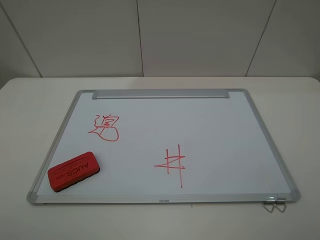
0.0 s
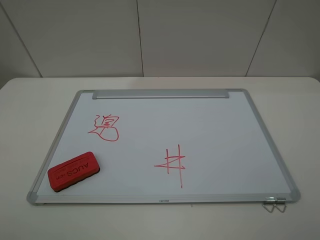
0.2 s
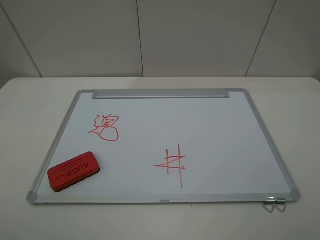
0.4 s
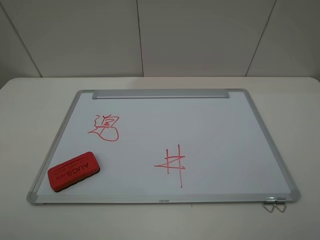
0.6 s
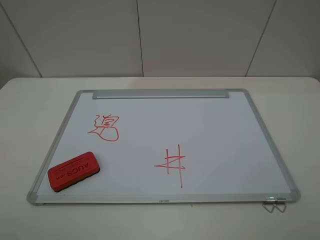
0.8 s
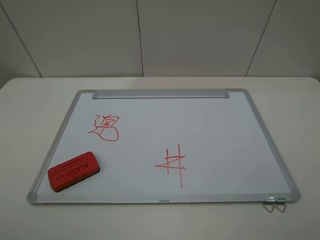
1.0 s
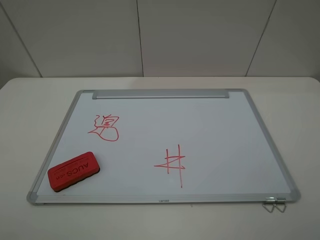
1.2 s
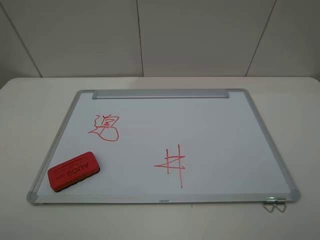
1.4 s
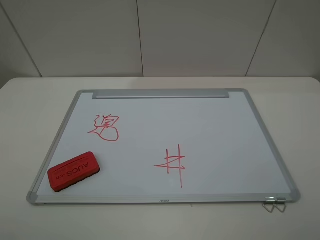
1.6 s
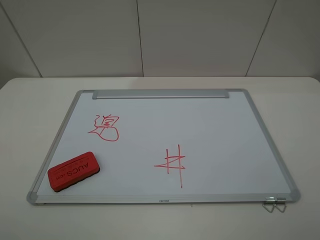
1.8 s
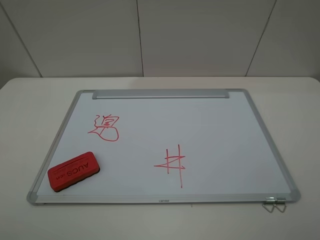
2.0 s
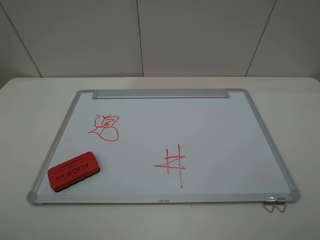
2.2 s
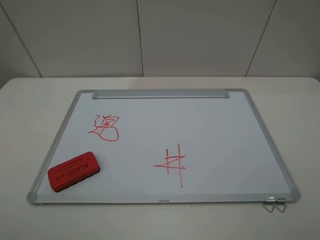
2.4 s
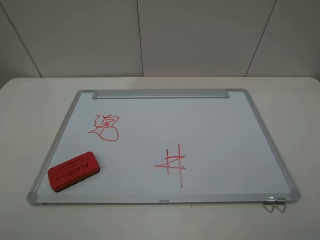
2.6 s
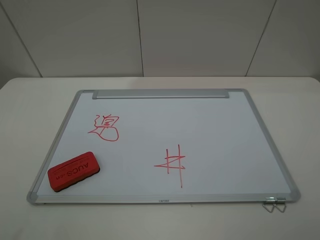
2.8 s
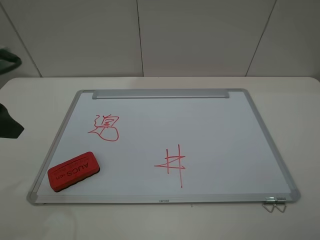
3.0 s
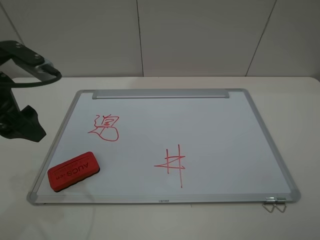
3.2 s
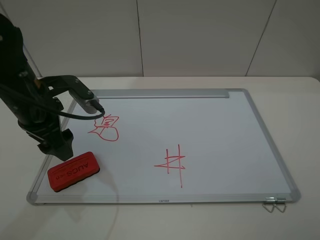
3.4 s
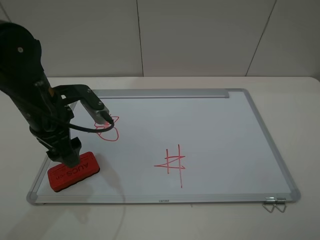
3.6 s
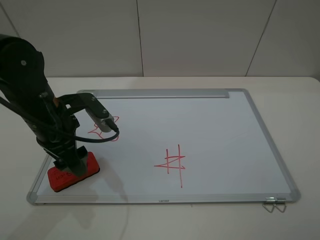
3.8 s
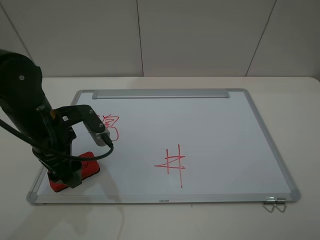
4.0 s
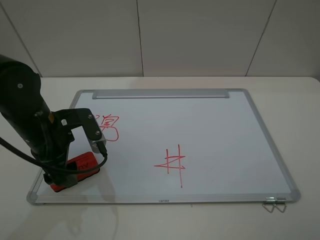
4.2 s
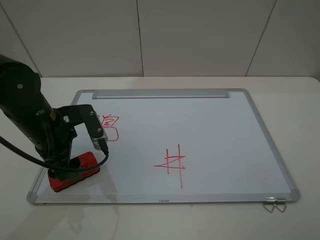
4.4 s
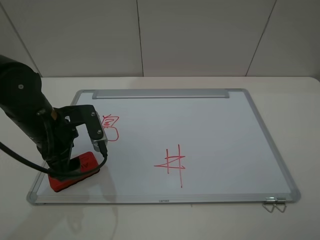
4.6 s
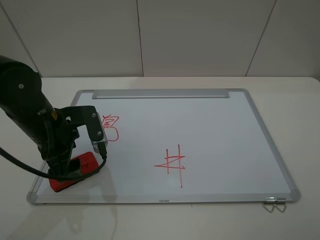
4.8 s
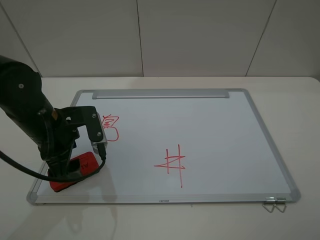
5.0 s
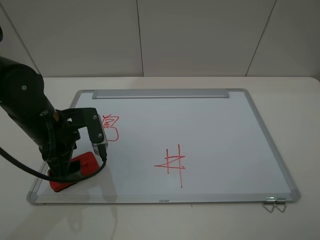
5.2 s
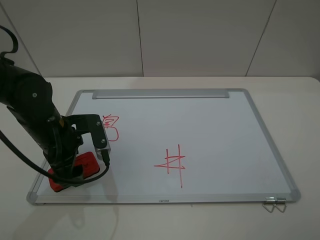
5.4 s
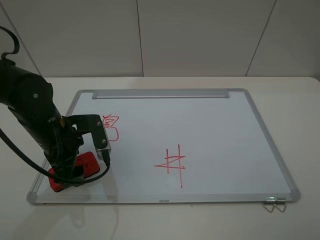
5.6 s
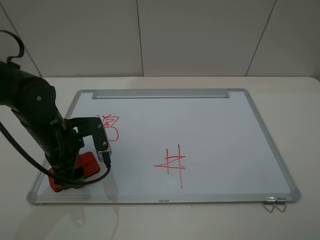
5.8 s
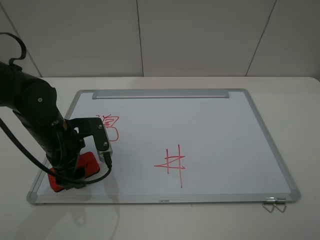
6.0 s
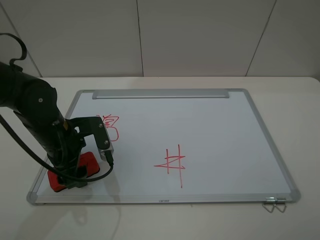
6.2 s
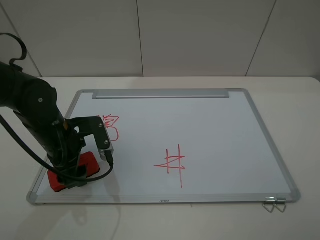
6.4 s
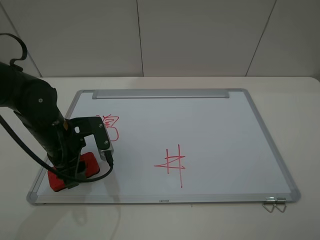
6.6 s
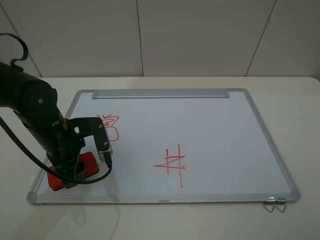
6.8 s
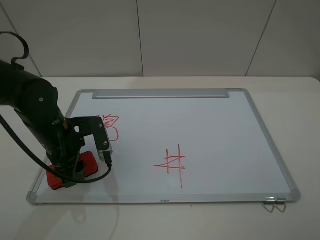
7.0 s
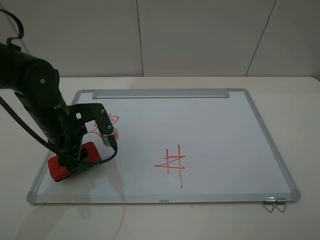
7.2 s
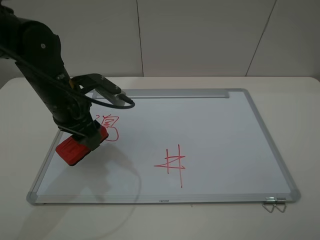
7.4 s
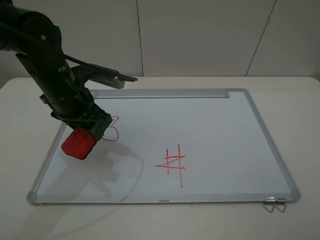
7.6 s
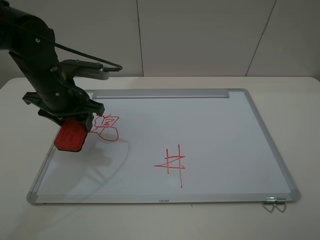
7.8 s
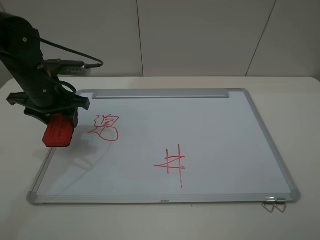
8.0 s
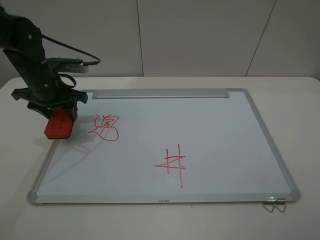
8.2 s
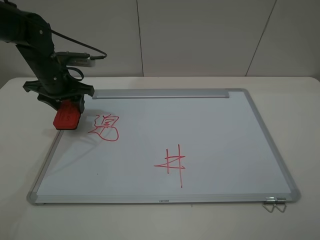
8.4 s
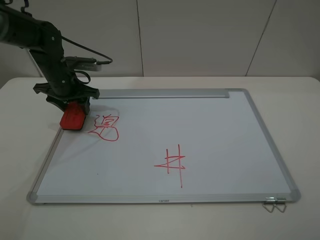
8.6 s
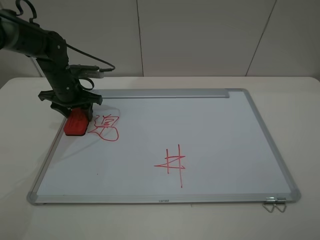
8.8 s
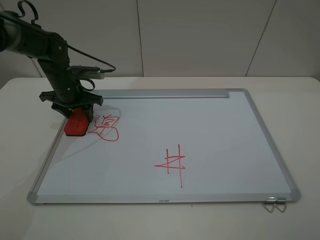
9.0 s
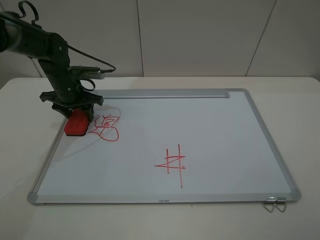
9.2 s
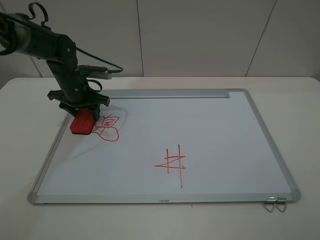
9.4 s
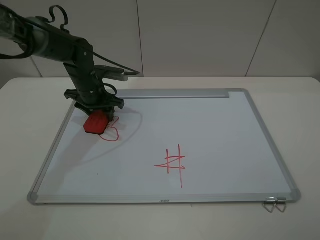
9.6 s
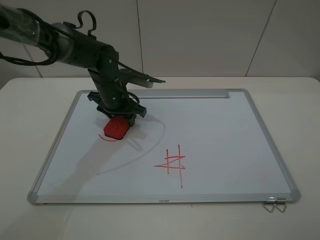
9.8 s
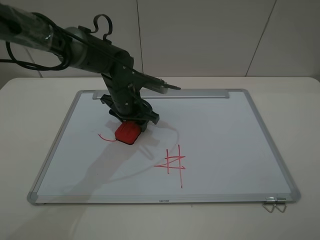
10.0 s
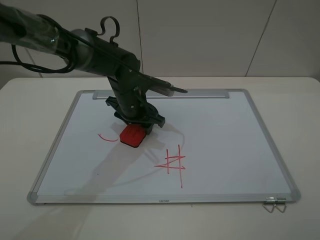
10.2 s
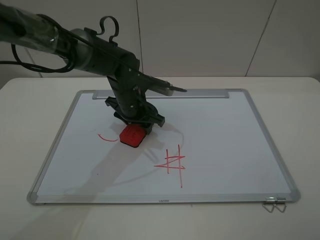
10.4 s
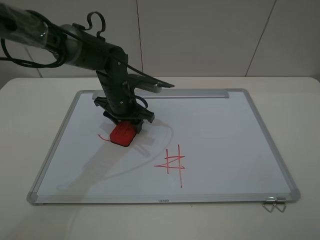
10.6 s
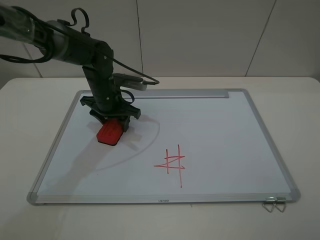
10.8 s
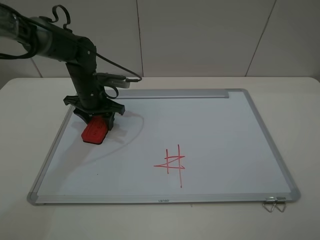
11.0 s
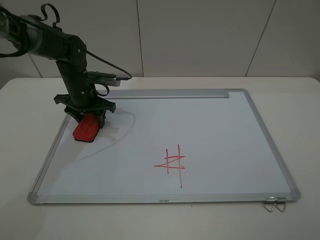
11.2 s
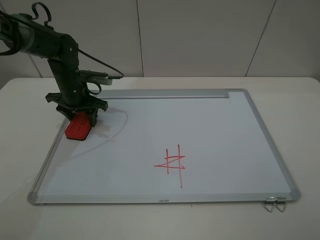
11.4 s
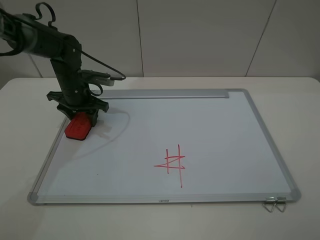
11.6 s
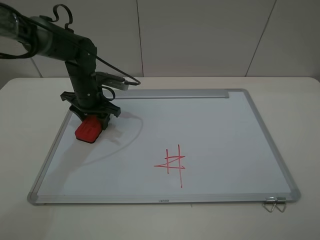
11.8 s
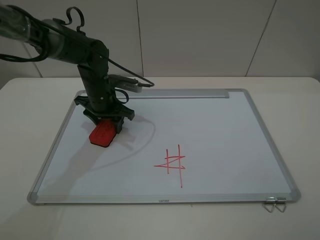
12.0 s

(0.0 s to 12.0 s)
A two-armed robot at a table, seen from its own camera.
Step, 0.0 s - 6.4 s: Grasp the eraser with the left gripper.
0.0 s - 1.6 s: Neither gripper changes place.
1.6 s - 3.0 s: The left gripper heads forward, covering approximately 20 cm.
3.0 s - 4.4 s: The left gripper moves downward and to the right, roughly 15 cm.
4.4 s - 6.0 s: The grippers move only a little.
6.0 s - 7.6 s: The left gripper goes roughly 5 cm upward, and closes.
7.6 s - 9.0 s: The left gripper is displaced forward, downward and to the left by some 15 cm.
9.0 s - 10.4 s: The left gripper is displaced to the right by roughly 15 cm.
10.4 s - 12.0 s: The left gripper travels to the left by some 5 cm.

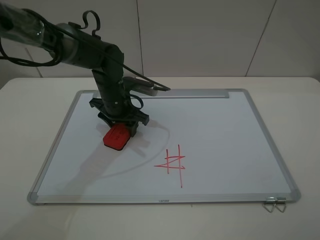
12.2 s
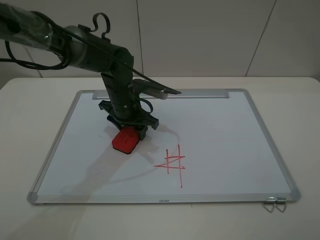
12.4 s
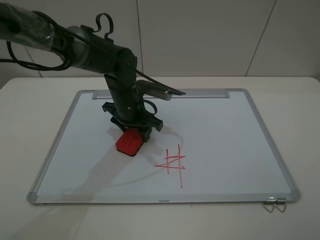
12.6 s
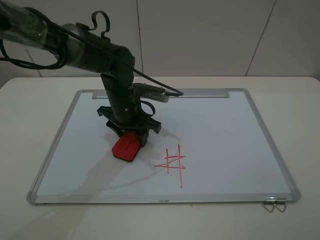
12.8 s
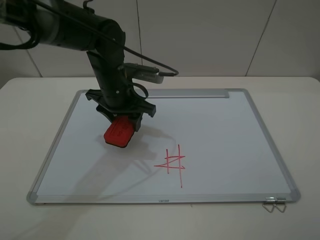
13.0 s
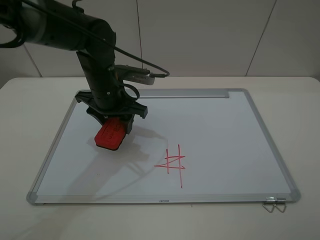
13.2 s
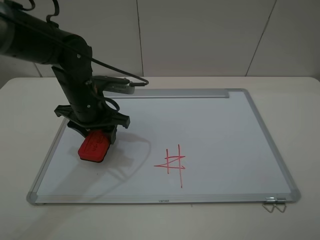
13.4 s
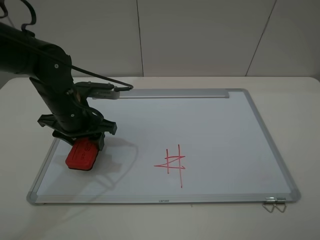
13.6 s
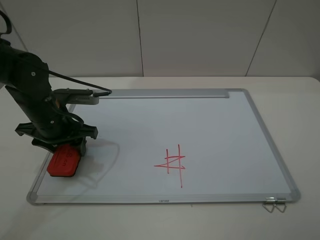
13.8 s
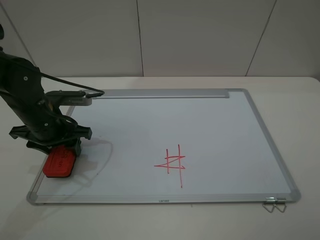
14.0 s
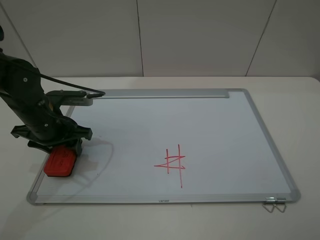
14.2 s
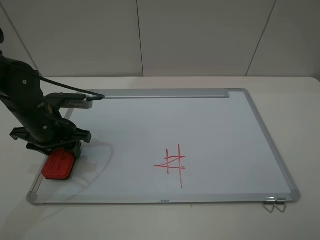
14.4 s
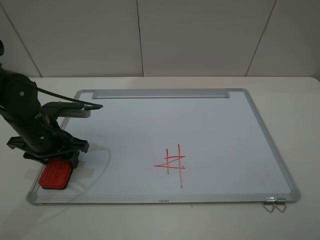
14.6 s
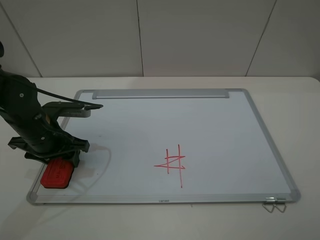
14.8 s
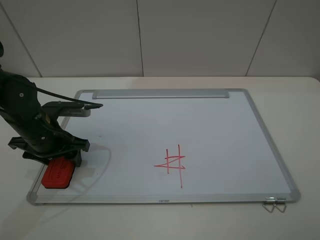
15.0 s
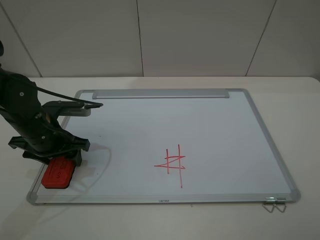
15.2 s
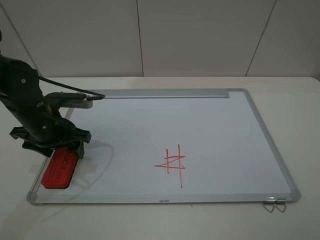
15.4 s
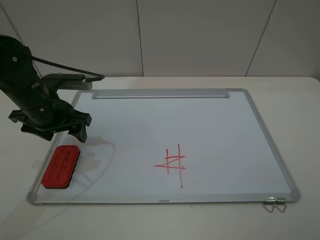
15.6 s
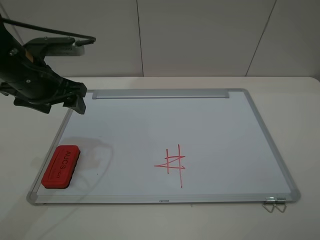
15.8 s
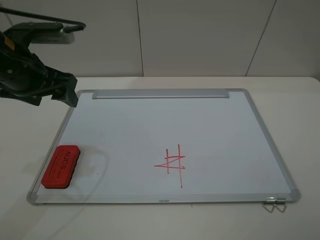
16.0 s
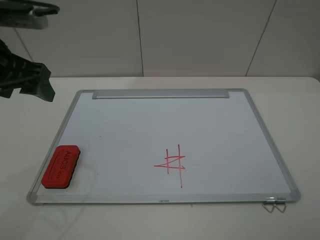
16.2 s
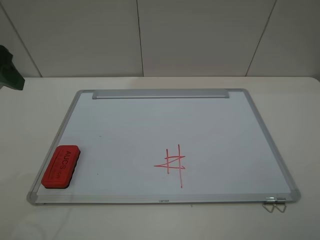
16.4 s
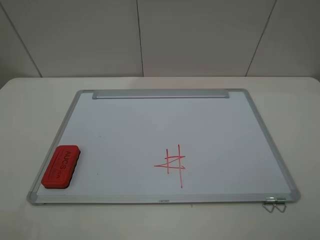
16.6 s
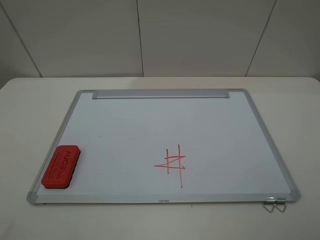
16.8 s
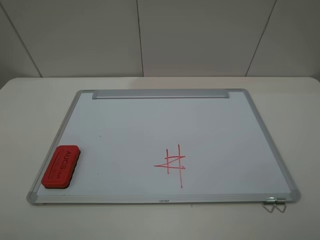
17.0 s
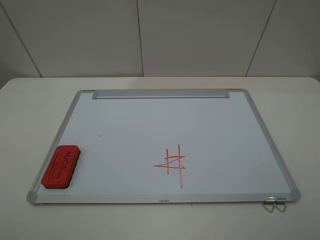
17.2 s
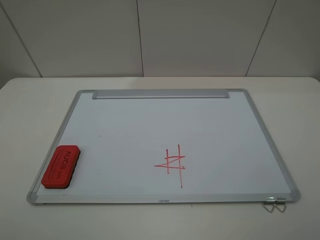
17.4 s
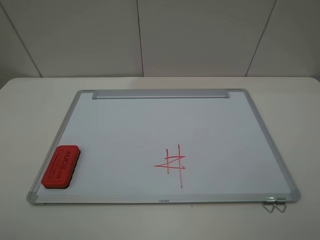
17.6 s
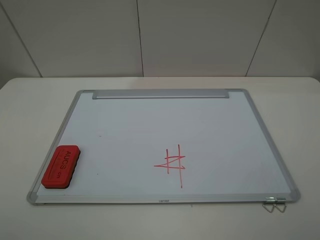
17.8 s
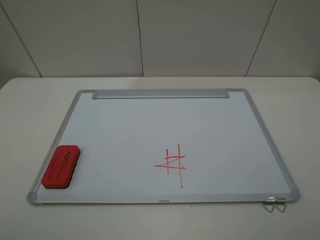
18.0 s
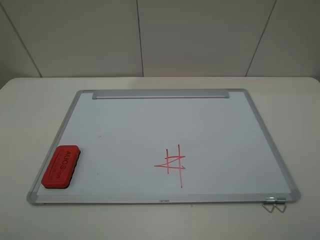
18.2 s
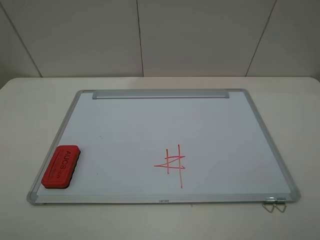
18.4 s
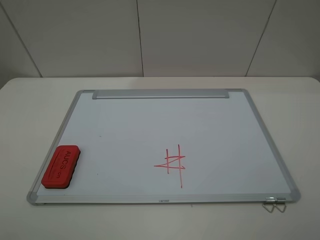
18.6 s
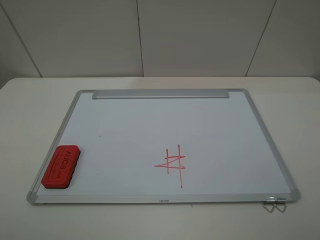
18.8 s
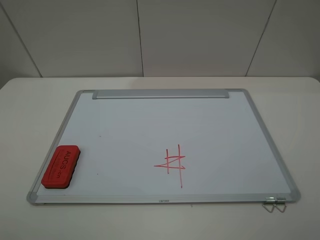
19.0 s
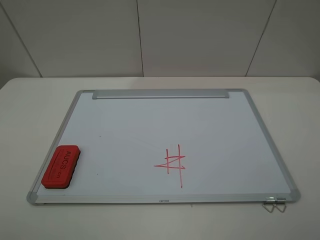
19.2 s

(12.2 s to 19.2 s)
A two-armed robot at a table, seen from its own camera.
Step, 13.0 s - 15.6 s: Place the eraser with the left gripper.
12.2 s - 13.6 s: The left gripper is displaced to the left, backward and upward by some 15 cm.
13.6 s - 15.0 s: The left gripper is displaced to the left by about 5 cm, and opens up.
15.0 s - 16.4 s: The left gripper shifts roughly 20 cm upward, and opens its fingers.
16.4 s - 17.8 s: The left gripper is displaced backward by roughly 20 cm.
17.8 s - 19.2 s: The two grippers keep their place.
